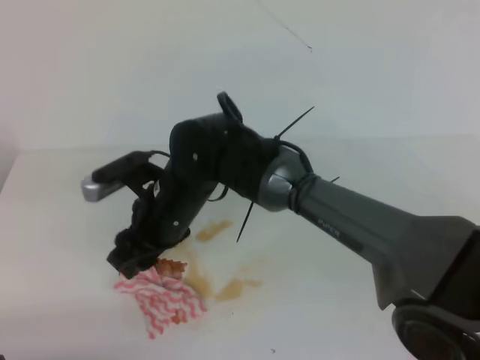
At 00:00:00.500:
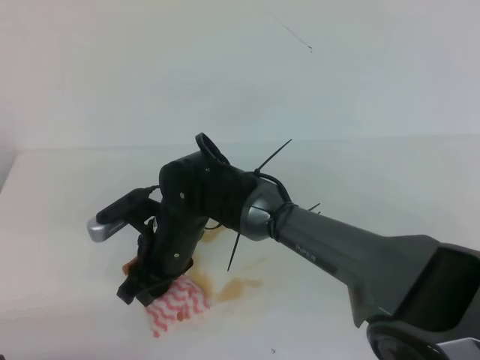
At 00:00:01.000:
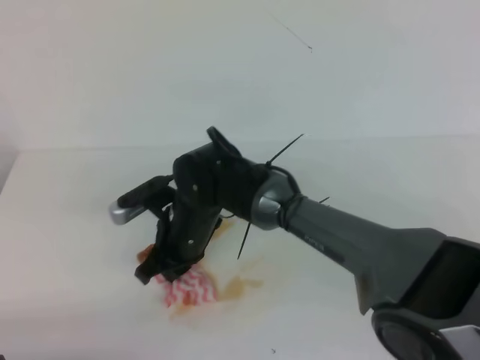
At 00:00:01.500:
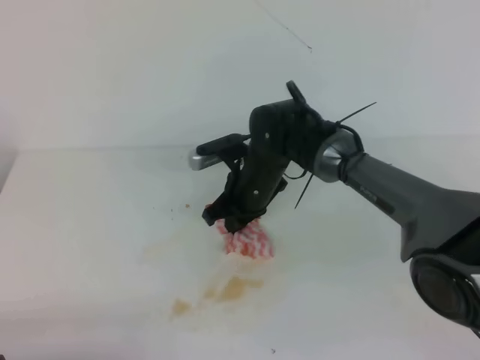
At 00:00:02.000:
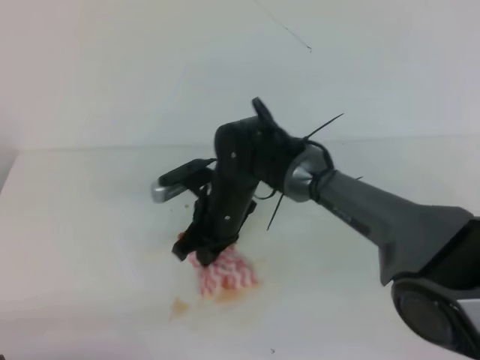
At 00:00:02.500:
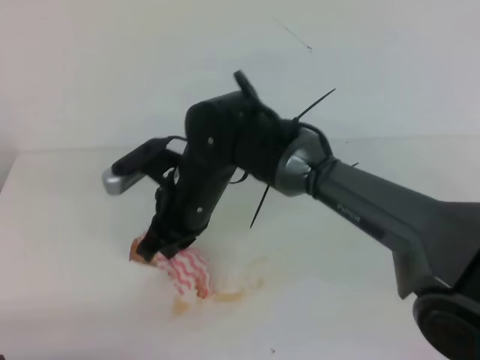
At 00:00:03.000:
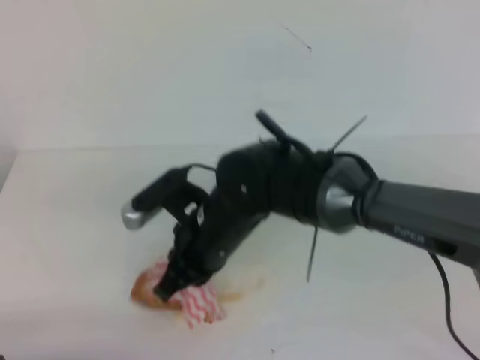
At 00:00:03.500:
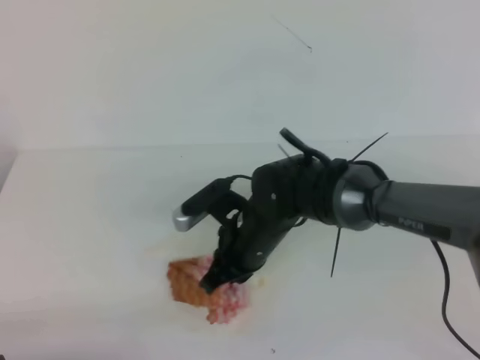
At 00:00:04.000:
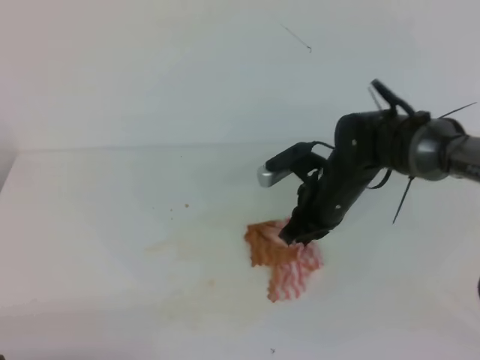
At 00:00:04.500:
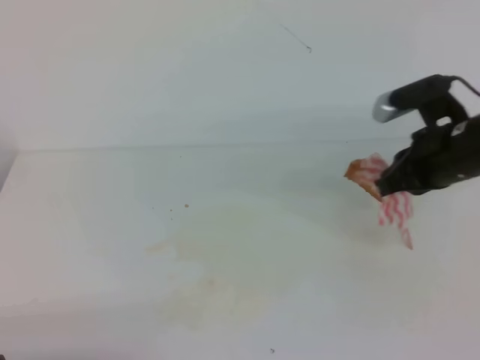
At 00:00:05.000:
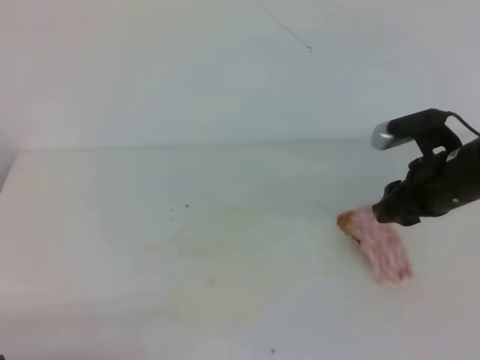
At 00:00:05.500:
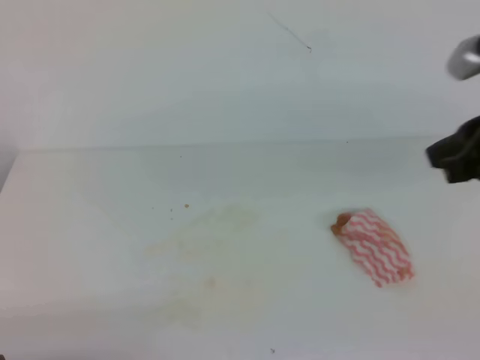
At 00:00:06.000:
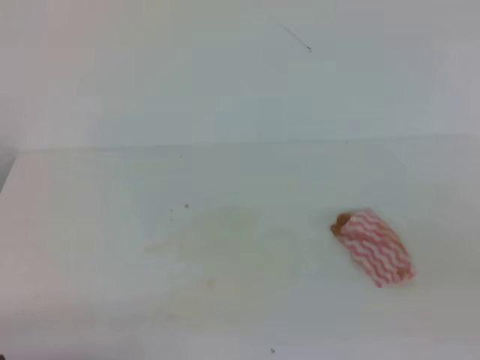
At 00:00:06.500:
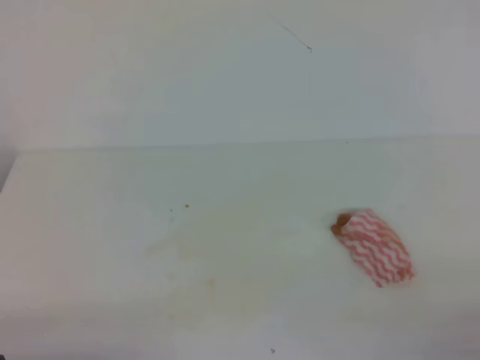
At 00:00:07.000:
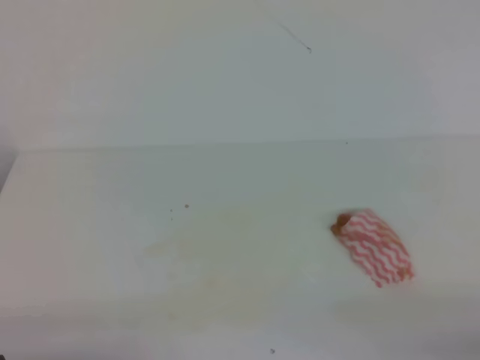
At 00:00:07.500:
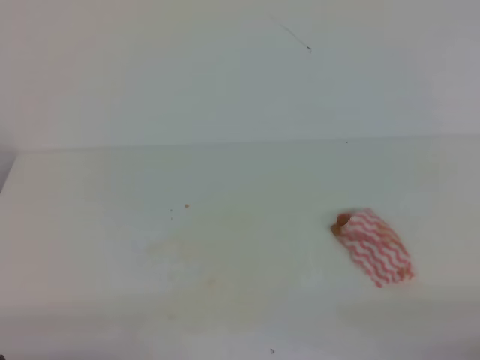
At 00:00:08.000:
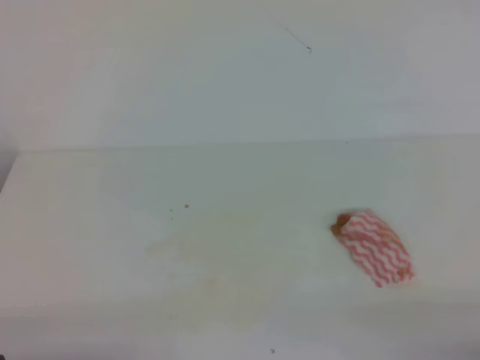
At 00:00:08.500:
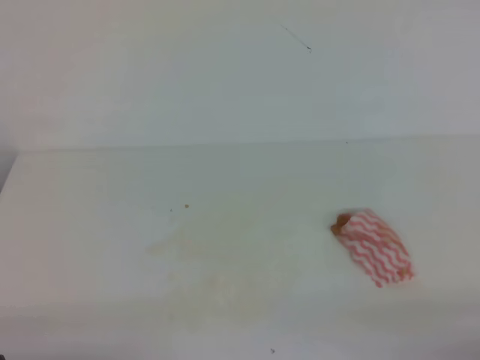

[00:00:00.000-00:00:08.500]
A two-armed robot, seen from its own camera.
00:00:00.000 to 00:00:02.000: The right gripper travels to the right and forward by some 10 cm, and closes.
00:00:02.000 to 00:00:04.000: The right gripper goes roughly 10 cm to the right.
00:00:04.000 to 00:00:06.500: The right gripper moves backward and to the right, approximately 35 cm, and opens, then closes again.
